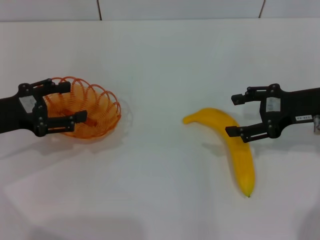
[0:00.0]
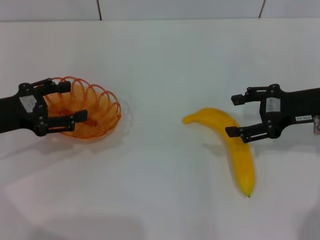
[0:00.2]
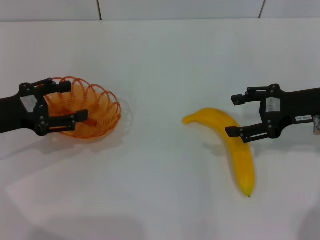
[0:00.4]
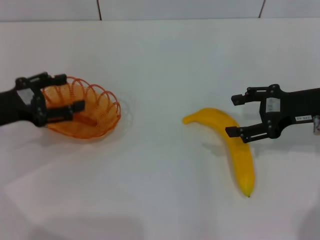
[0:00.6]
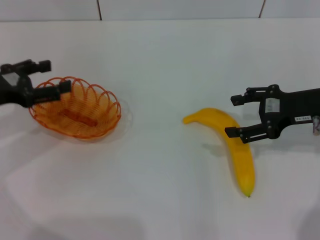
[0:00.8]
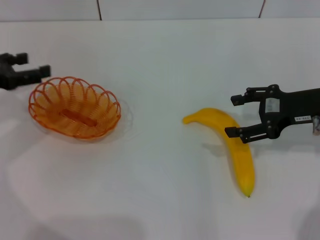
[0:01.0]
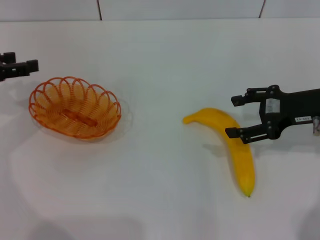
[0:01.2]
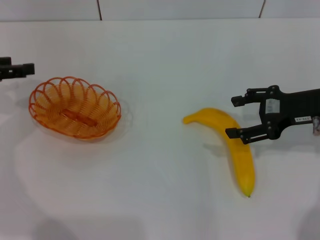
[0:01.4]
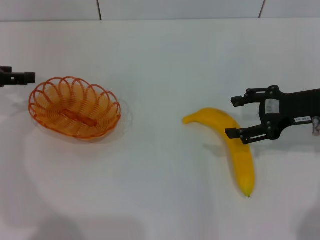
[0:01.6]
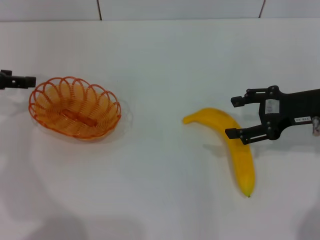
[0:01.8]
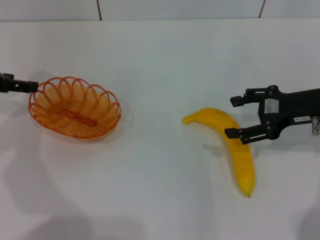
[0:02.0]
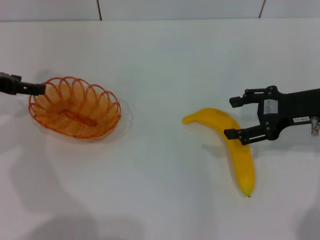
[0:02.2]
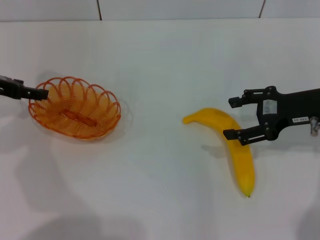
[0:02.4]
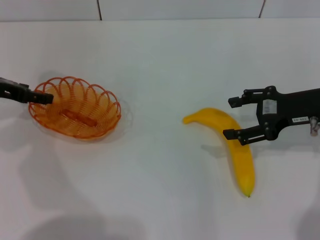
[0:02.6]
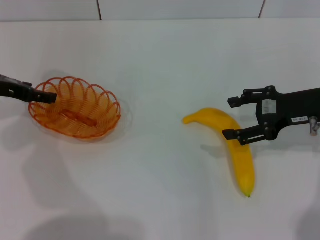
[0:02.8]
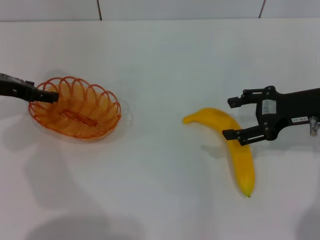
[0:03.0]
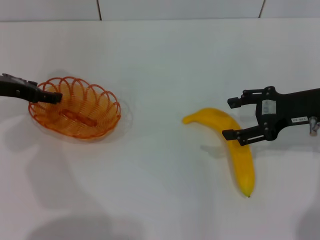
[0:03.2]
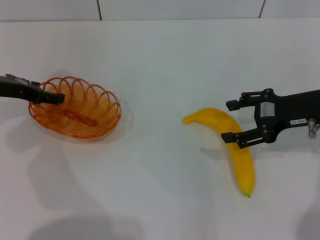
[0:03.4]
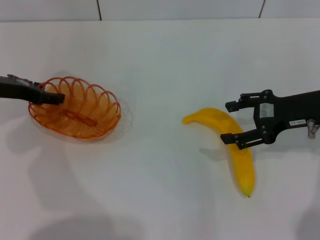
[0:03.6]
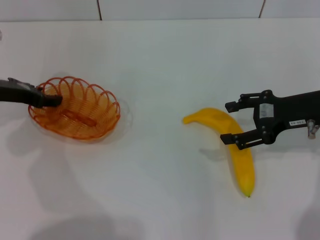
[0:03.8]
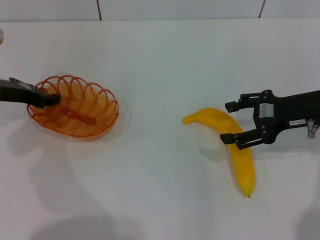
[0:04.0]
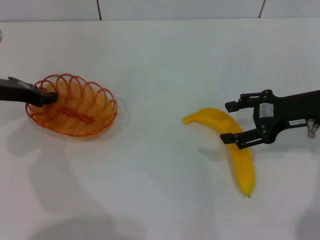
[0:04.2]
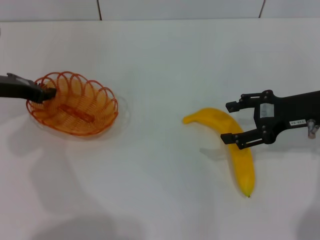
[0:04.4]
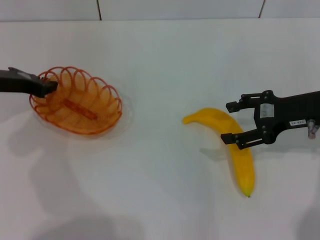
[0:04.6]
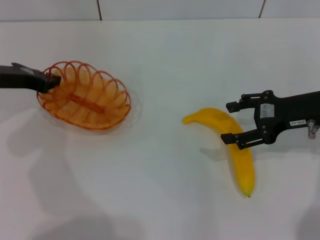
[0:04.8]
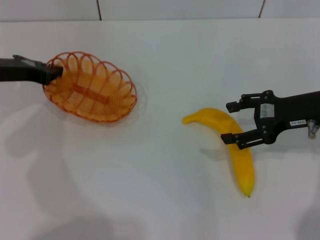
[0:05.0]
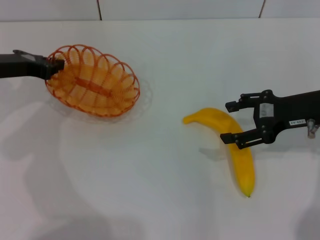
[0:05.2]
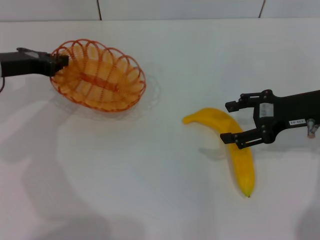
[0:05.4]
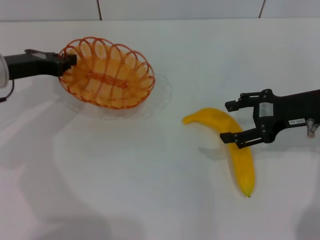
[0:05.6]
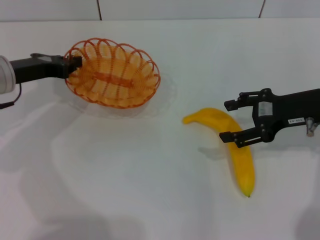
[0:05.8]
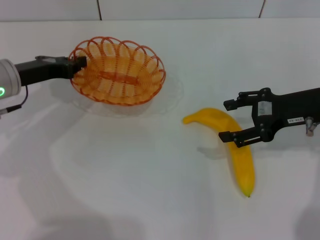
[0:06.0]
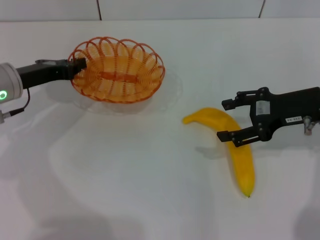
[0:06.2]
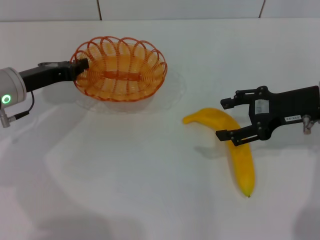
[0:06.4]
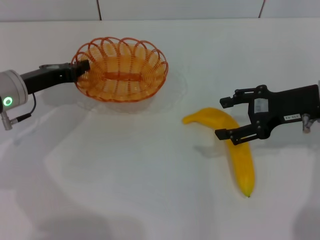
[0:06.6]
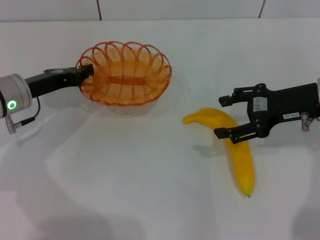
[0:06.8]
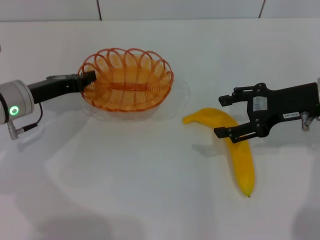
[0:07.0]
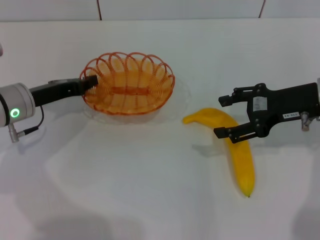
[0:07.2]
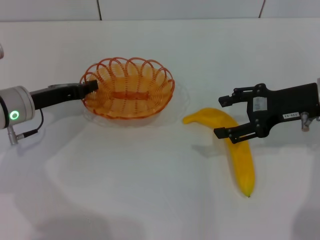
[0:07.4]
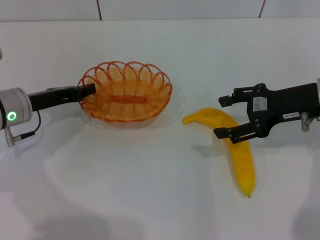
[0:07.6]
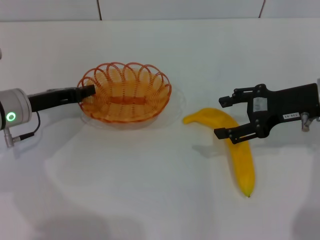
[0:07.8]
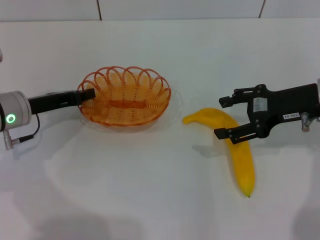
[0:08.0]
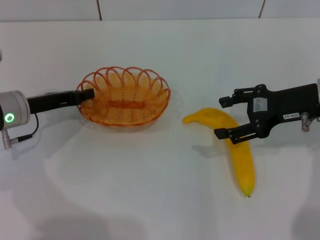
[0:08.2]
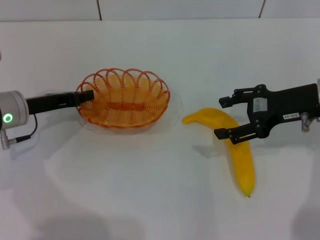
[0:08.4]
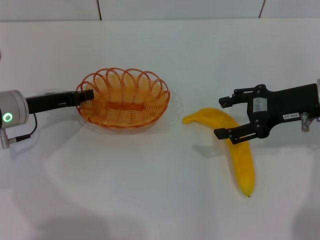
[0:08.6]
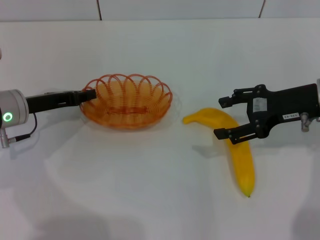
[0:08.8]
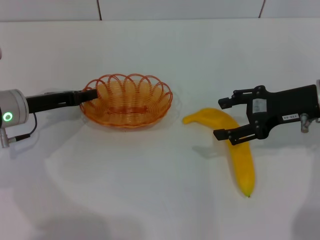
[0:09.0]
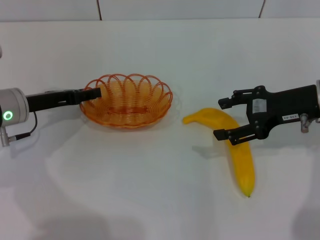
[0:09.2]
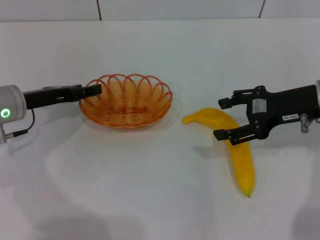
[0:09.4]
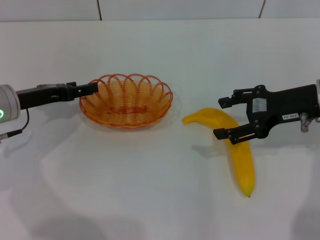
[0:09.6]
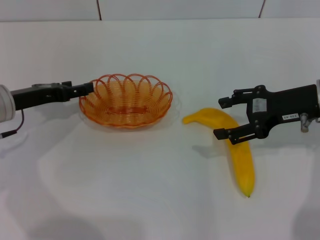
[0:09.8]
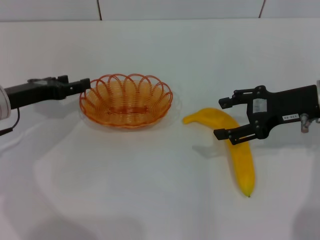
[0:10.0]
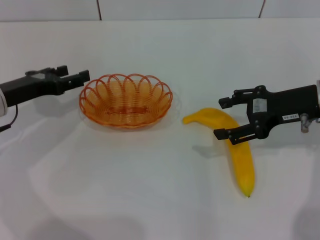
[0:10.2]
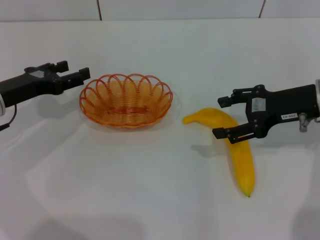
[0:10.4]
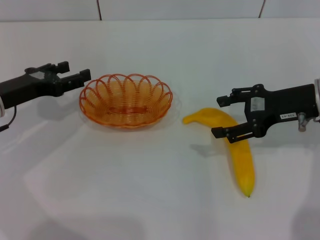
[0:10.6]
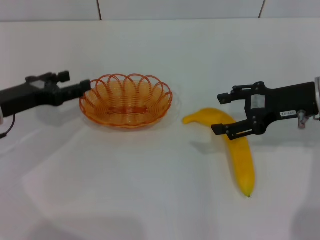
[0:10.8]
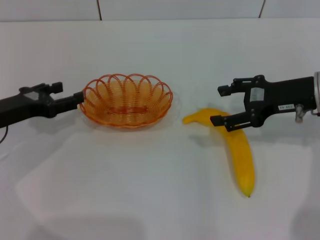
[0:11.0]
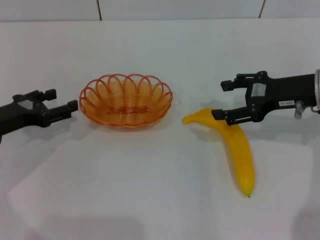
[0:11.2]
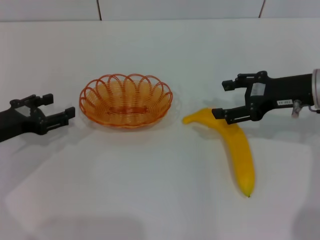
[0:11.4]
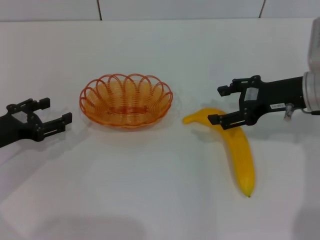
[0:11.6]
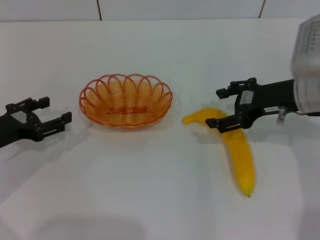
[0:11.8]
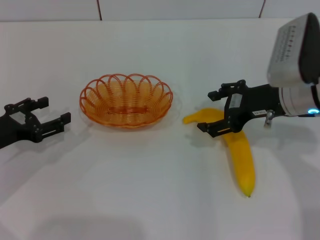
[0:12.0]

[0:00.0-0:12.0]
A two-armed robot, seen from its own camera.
Step, 0:00.0 to 0:05.0: Pick up the basket with the left gripper.
Step, 0:05.4 to 0:10.8: Place the basket in the center of view with the left gripper.
0:00.0 to 0:01.6: The left gripper goes approximately 10 cm forward and upward.
0:01.6 to 0:03.0: The left gripper moves some 5 cm.
0:03.0 to 0:04.4: The left gripper closes its fingers.
0:06.0 to 0:07.6: The grippers make only small movements.
0:07.6 to 0:09.0: Both grippers stay about where they are.
0:09.0 to 0:10.4: The left gripper opens up.
0:10.4 to 0:12.0: The left gripper shifts approximately 5 cm backward, while the right gripper travels to the left by about 5 cm.

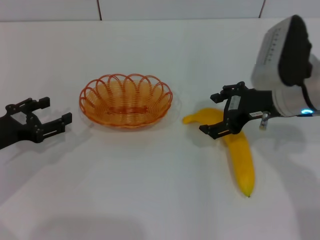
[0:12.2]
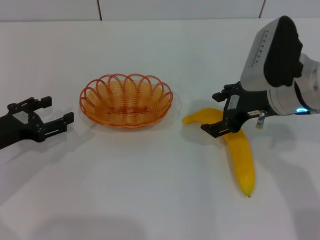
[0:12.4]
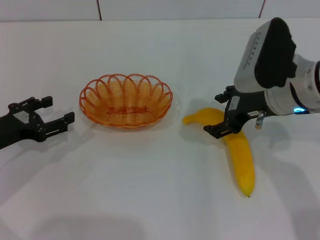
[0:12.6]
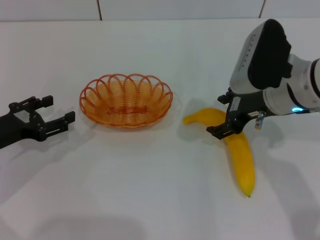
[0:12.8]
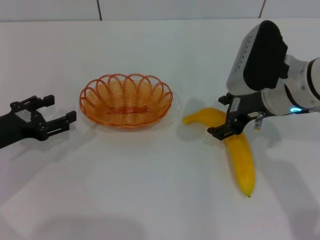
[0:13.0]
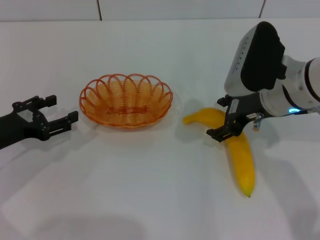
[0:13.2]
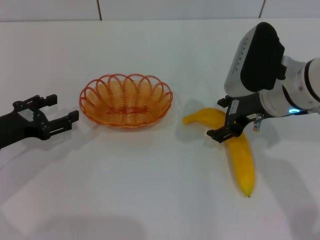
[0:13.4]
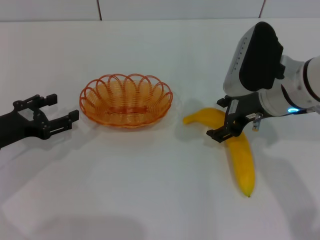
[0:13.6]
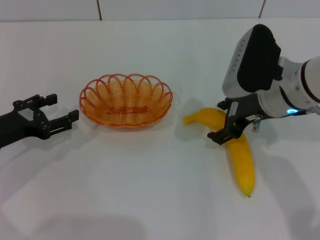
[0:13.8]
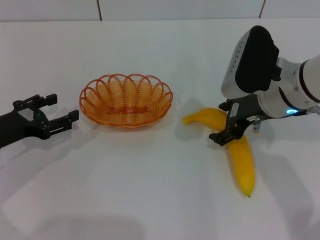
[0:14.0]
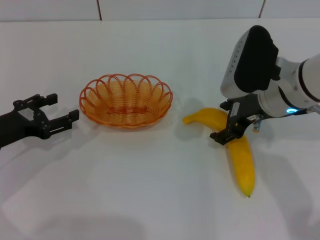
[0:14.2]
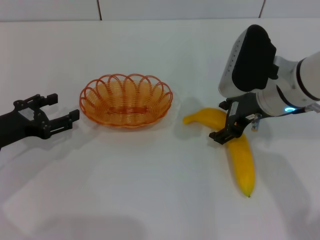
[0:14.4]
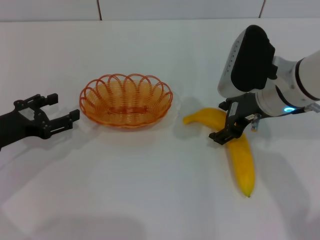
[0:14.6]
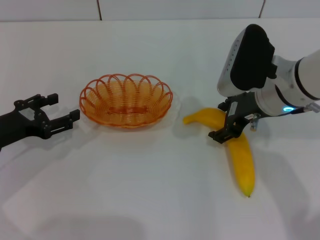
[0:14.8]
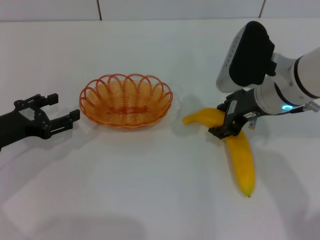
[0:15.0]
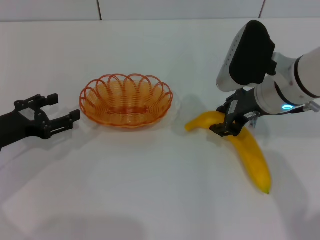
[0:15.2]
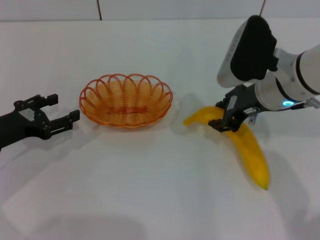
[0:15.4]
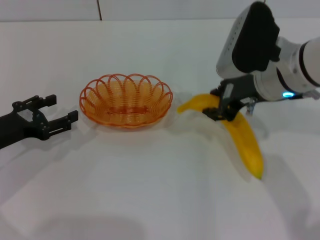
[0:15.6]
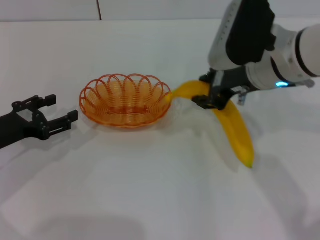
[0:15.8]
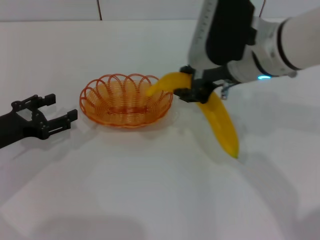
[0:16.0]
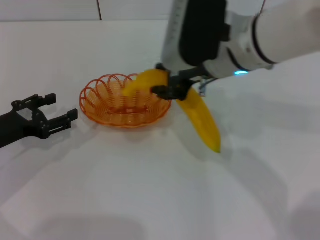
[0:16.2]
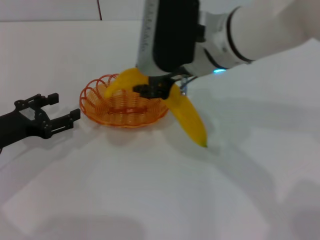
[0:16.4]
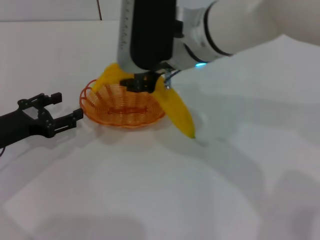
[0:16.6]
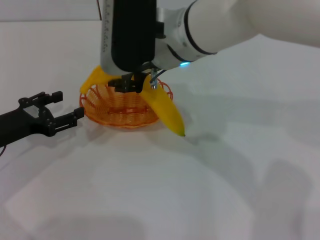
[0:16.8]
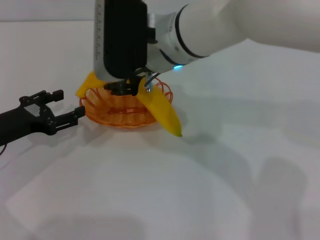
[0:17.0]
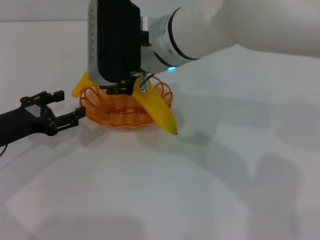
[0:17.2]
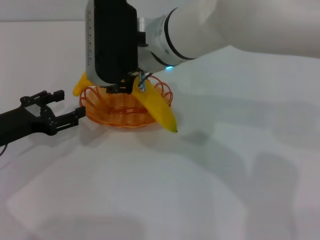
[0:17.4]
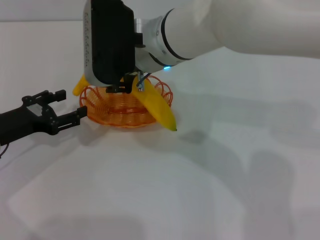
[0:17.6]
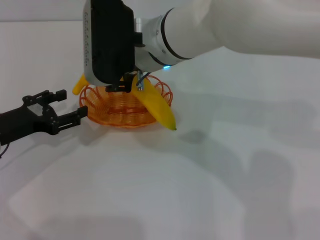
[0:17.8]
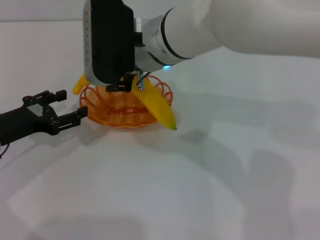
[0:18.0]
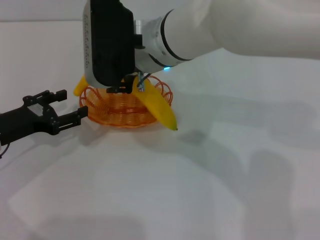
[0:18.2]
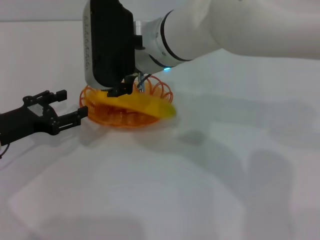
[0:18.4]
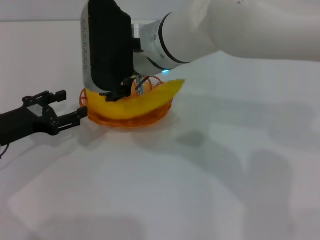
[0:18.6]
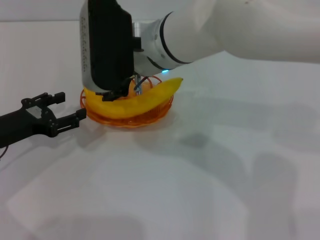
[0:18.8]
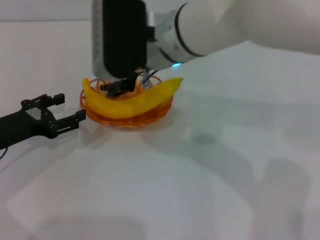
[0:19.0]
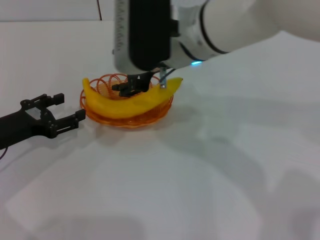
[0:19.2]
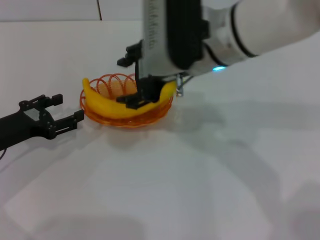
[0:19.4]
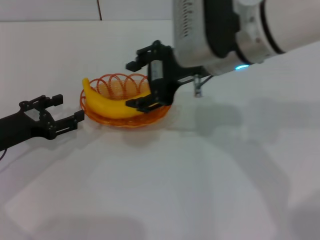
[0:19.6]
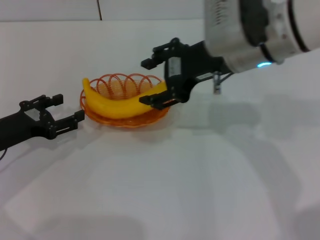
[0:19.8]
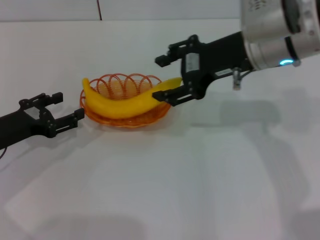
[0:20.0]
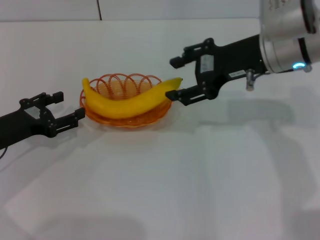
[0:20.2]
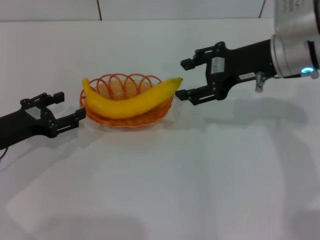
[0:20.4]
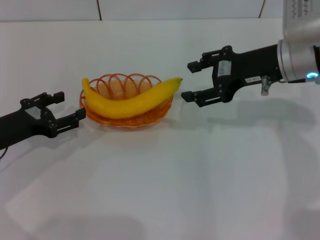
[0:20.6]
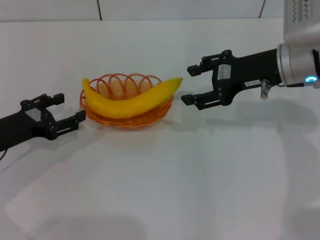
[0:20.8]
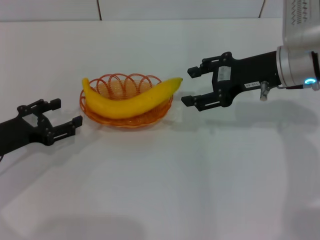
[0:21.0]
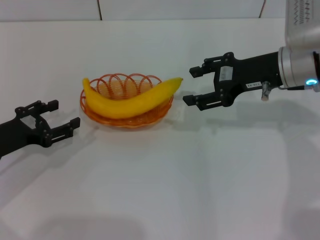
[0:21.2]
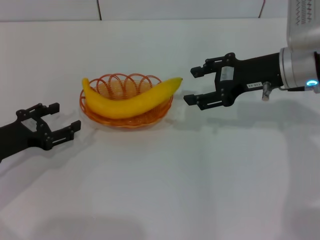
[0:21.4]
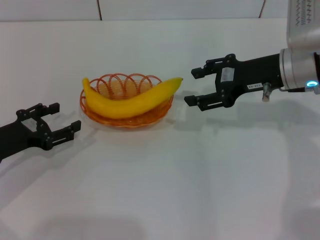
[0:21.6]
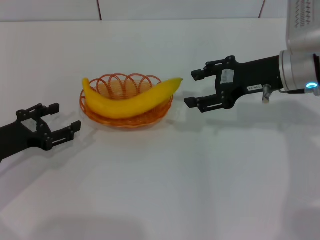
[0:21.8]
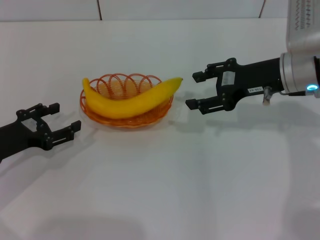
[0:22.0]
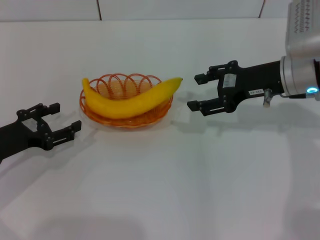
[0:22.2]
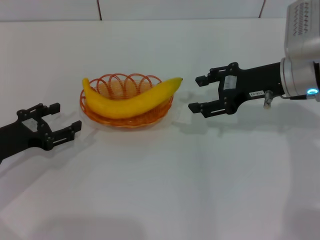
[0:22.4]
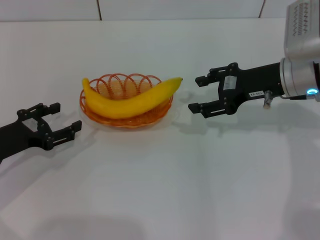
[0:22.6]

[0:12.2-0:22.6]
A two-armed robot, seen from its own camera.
Step, 0:12.2 to 0:15.6: Pick up the banana with the right gripper.
Step, 0:15.8 to 0:19.4: Place the banana into the basket with the right gripper.
0:12.2 to 0:13.6: The grippers move only a little.
0:13.6 to 0:15.2: The right gripper closes.
0:15.2 to 0:16.6: The right gripper shifts about 15 cm to the left and upward.
0:16.6 to 0:18.2: The grippers make only small movements.
0:18.2 to 0:19.6: The right gripper heads to the right, covering some 10 cm, and opens its fingers.
0:19.6 to 0:21.2: The right gripper heads to the right and downward, covering about 15 cm.
0:21.2 to 0:22.6: The grippers stay close to where they were, moving slightly.
